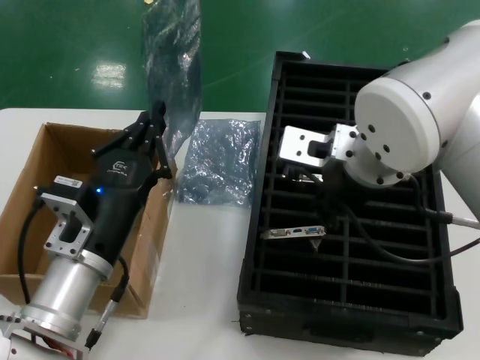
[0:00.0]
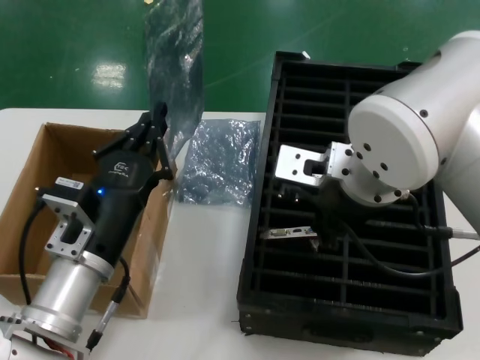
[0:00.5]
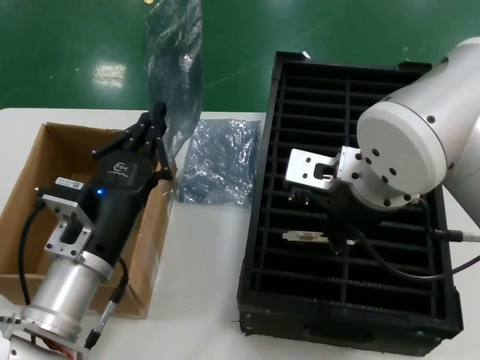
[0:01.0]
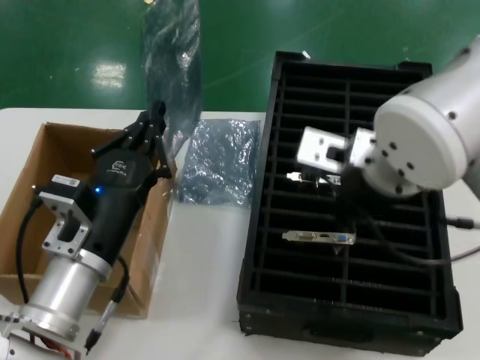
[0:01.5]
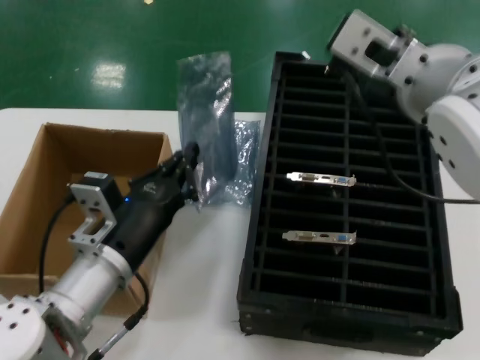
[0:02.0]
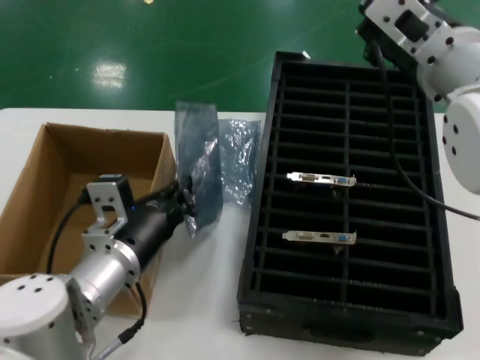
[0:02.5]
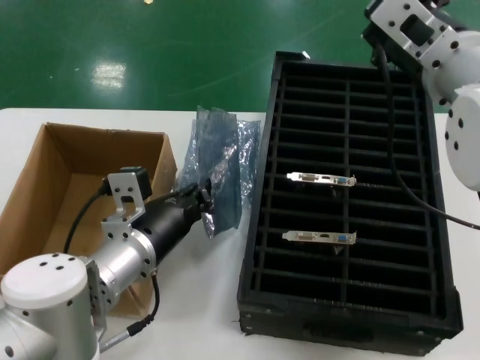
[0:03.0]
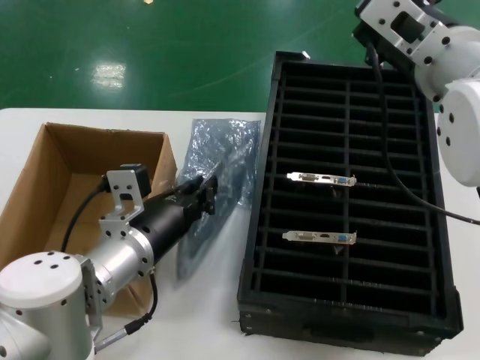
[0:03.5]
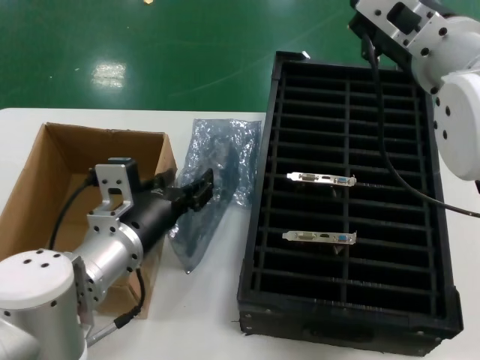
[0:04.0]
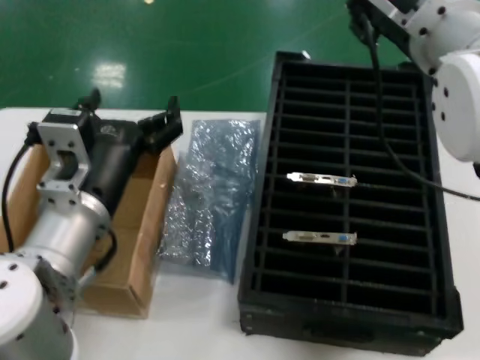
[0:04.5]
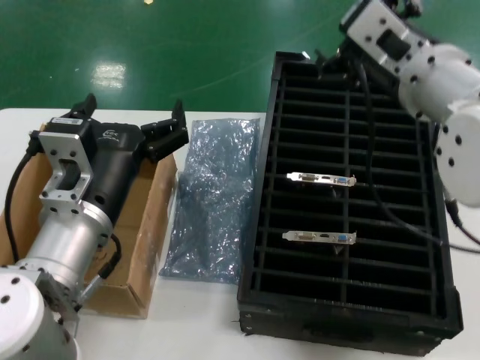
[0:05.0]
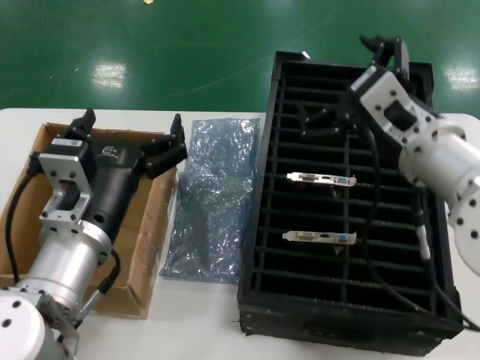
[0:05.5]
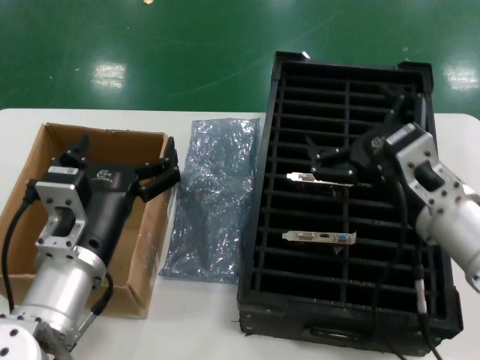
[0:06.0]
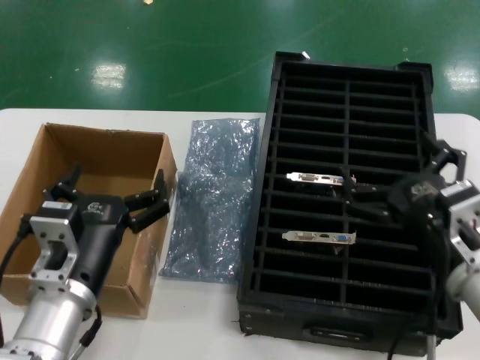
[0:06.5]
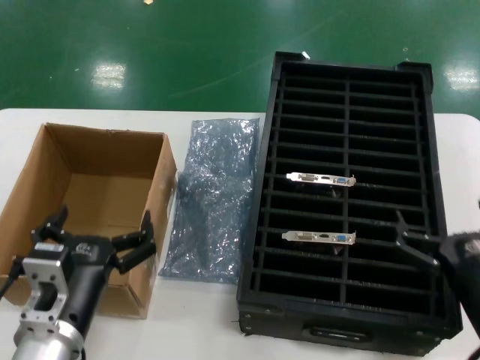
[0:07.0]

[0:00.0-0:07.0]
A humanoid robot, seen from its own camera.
Task of the whole recording: take out graphics card from box remove packaging put into black container.
Step, 0:02.0 to 0:06.0: Place the down the bag.
0:00.0 to 0:02.0: The right hand moves about 5 cm.
0:03.5 to 0:05.0: The left hand heads upward, covering roughly 5 cm.
0:05.0 to 0:07.0: The right hand heads downward, backward and to the right, covering some 30 cm, while the left hand heads downward, covering some 10 cm.
